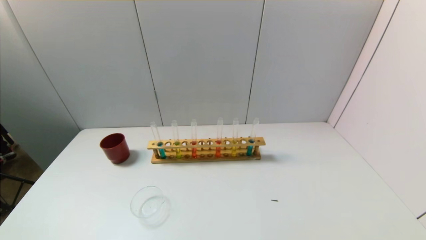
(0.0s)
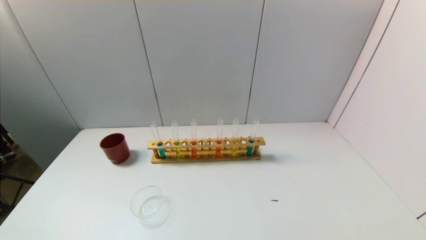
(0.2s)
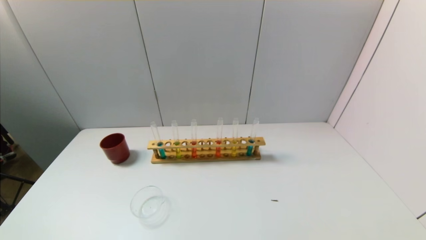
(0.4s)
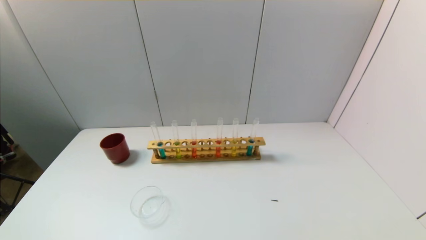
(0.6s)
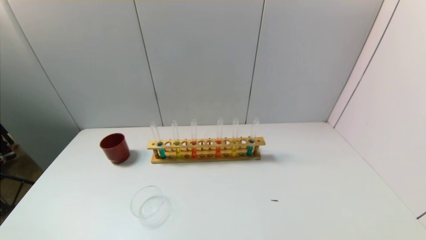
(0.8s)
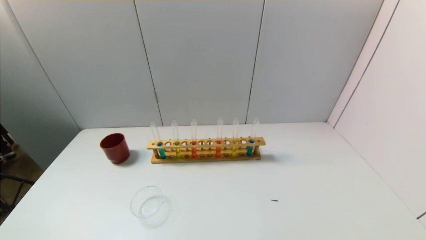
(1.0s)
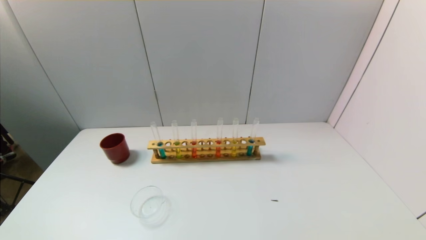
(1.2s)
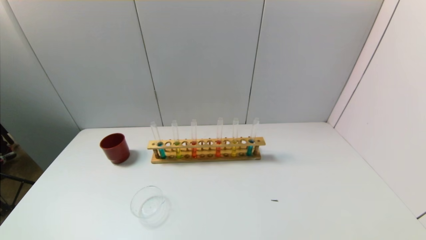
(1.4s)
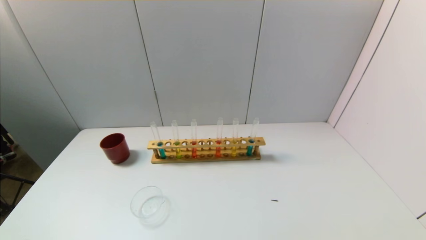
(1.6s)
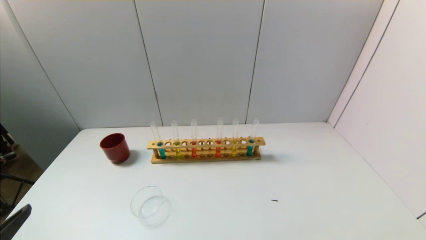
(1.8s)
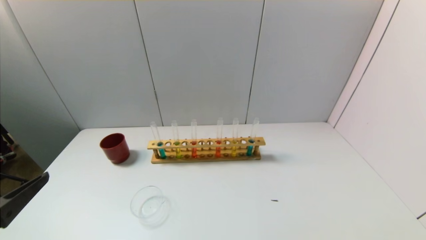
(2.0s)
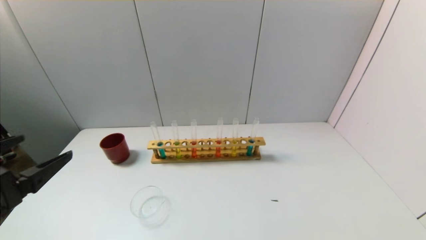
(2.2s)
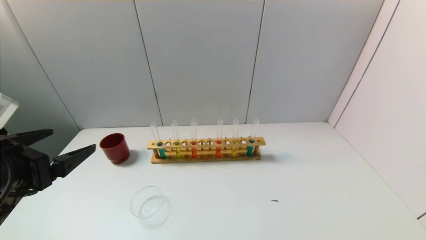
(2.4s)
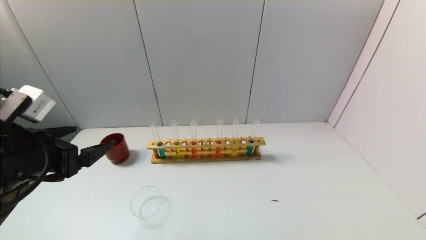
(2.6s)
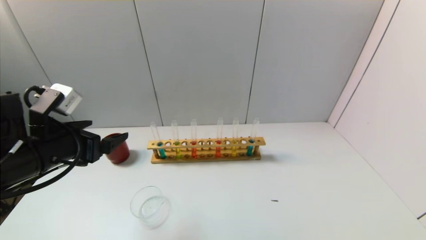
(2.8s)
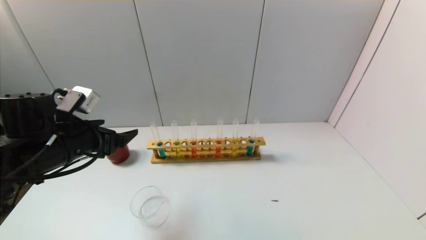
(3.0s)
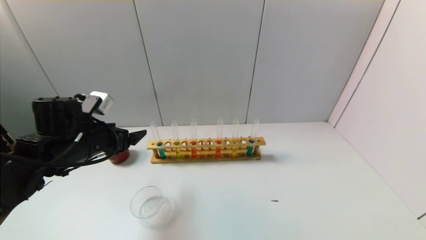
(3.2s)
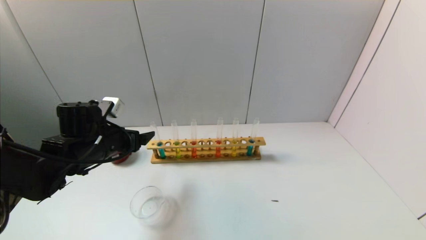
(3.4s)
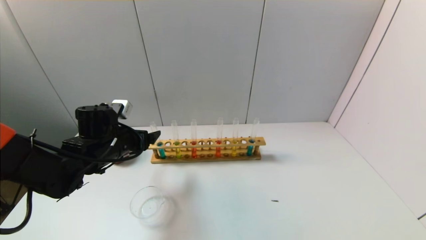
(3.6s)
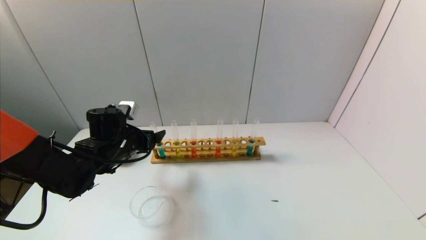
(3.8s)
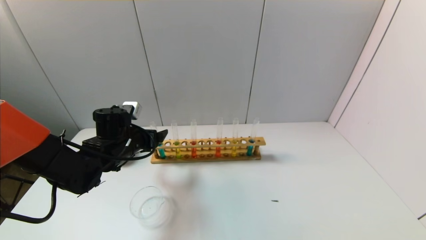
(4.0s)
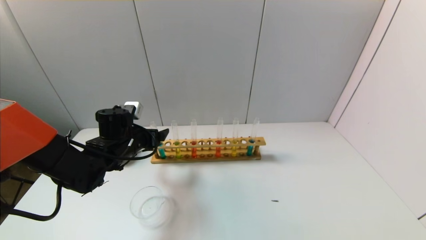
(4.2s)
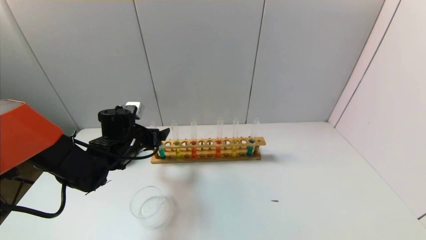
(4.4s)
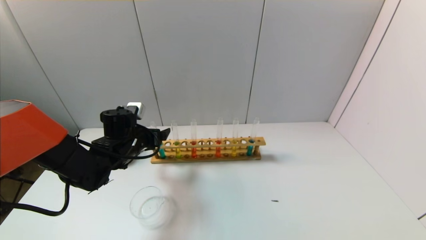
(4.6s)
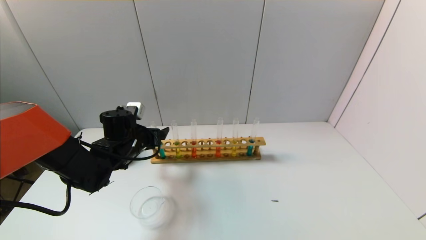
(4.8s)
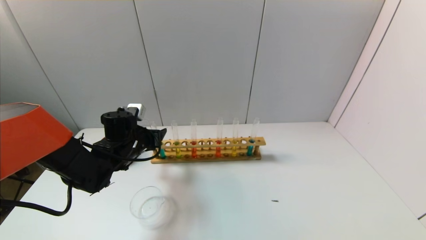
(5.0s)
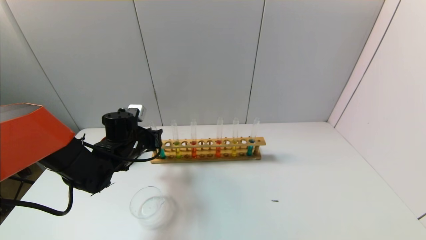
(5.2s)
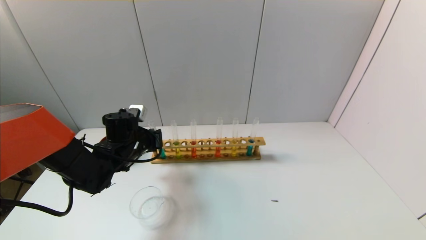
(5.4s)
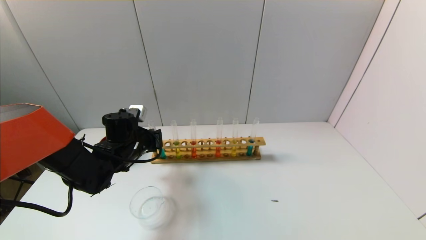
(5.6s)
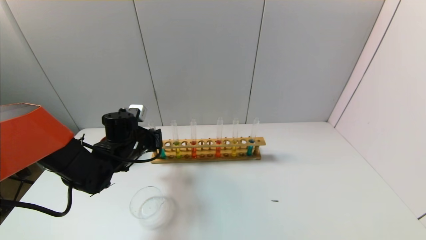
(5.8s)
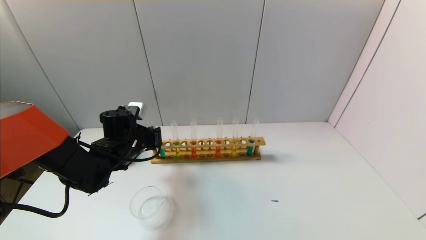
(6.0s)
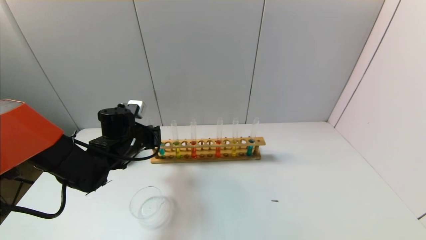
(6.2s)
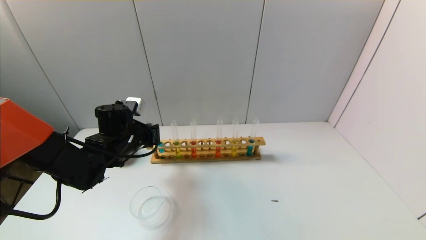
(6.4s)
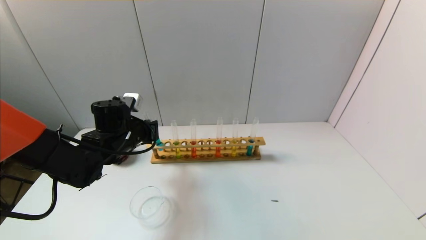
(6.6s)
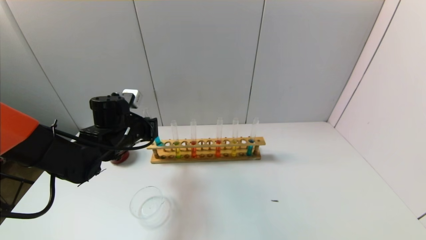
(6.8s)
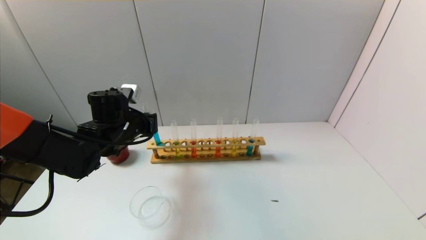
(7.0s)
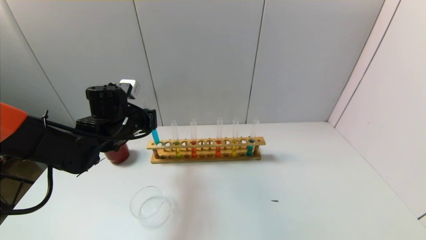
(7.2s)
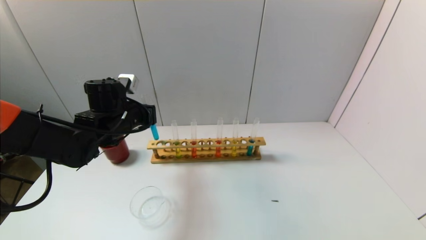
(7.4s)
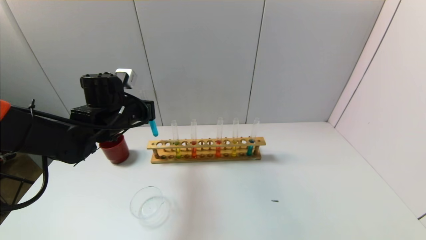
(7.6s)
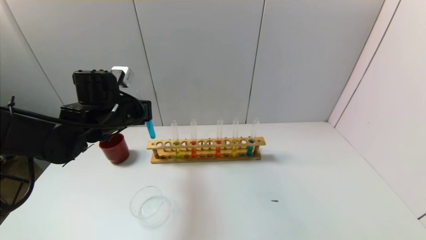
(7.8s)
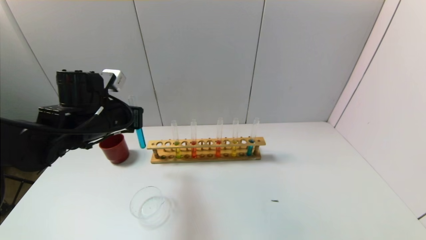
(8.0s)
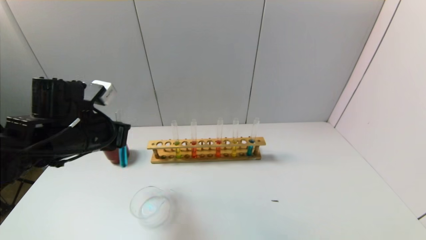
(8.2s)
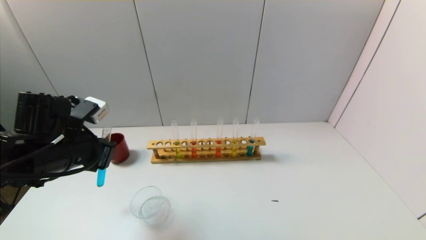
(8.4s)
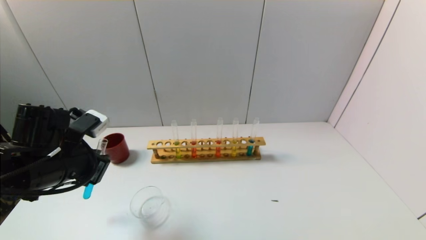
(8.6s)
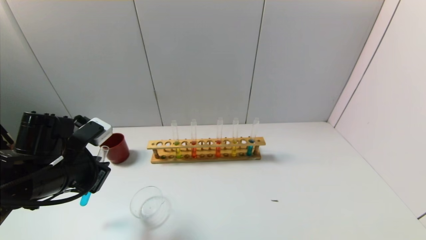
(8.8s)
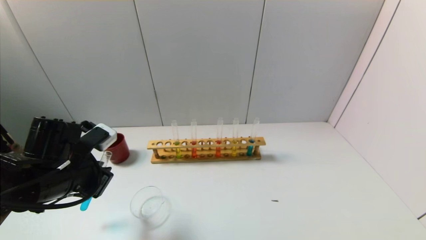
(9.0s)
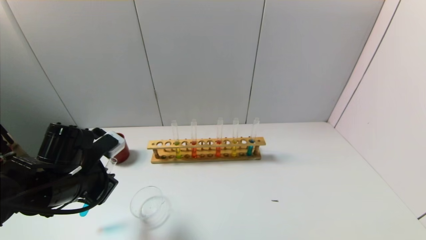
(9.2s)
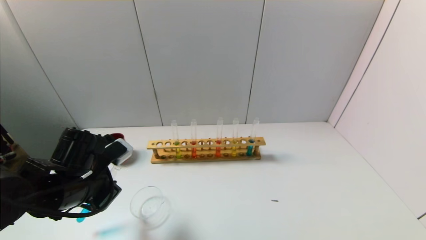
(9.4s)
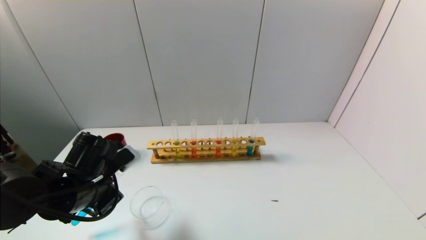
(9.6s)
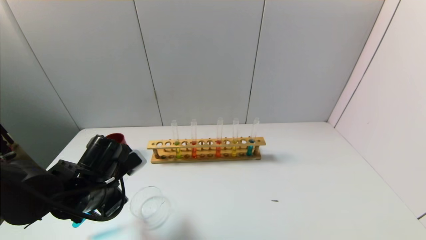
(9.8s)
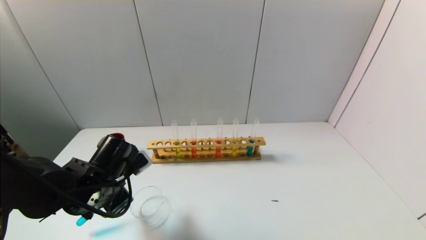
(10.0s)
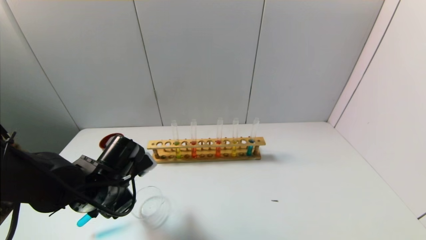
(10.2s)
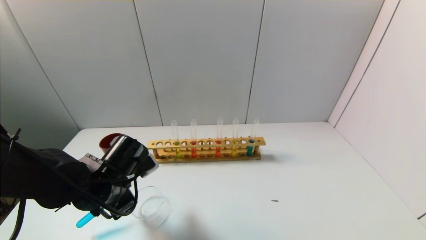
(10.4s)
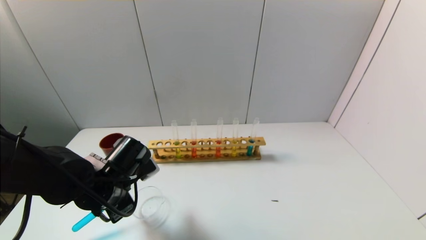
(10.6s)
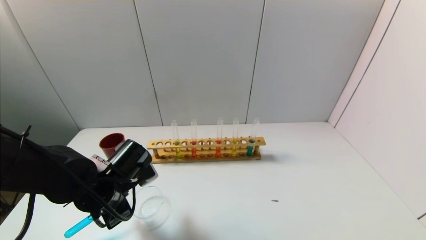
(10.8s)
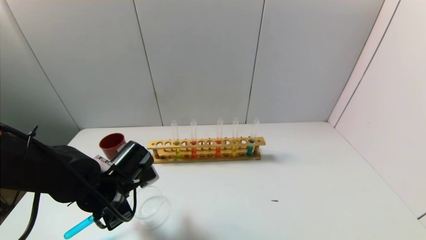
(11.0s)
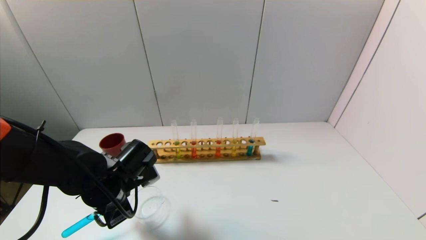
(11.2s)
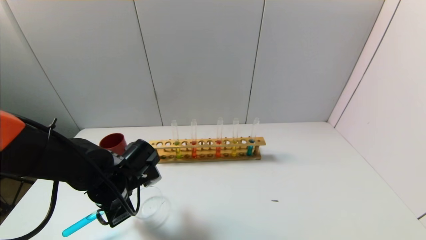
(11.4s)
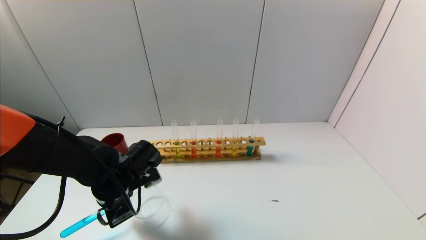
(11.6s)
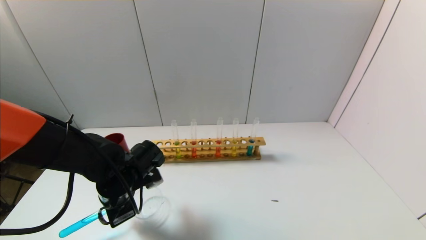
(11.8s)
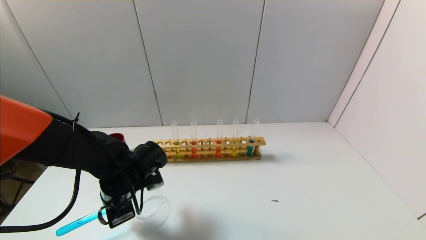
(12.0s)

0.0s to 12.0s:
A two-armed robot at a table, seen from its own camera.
Task of the whole recording: pick up the test tube with yellow pigment and the test tube with blue pigment by grippers and pour them into the beaker.
Step, 0.0s to 5.4s: Grasp the blue reagent with the left gripper.
1.6s to 3.0s: The left gripper is displaced forward by roughly 25 cm.
3.0s to 4.4s: The left gripper shifts about 15 cm forward, downward and to the right.
4.4s to 6.0s: The left gripper closes.
6.0s to 7.6s: The left gripper heads upward, covering about 10 cm.
7.6s to 9.0s: The left gripper moves backward, approximately 15 cm.
9.0s to 10.4s: The left gripper goes some 5 cm to the right.

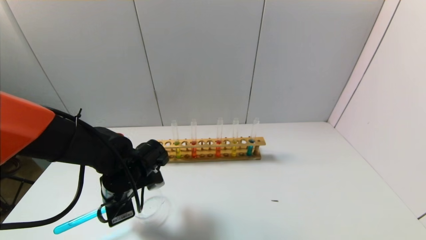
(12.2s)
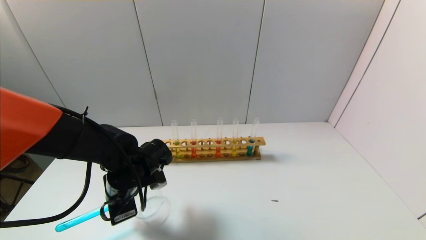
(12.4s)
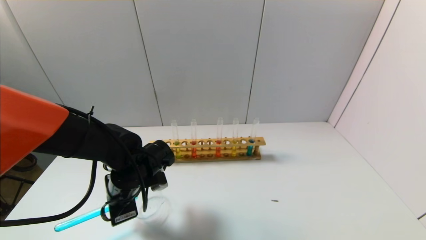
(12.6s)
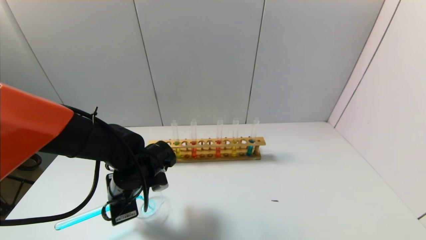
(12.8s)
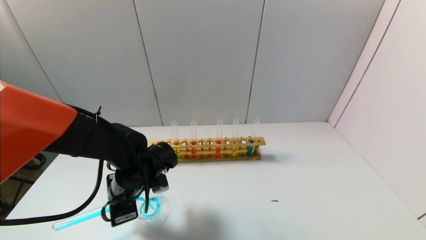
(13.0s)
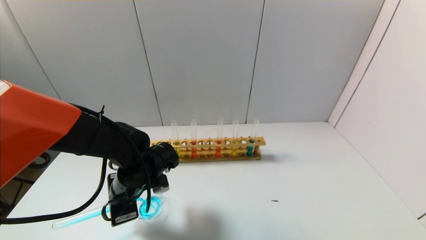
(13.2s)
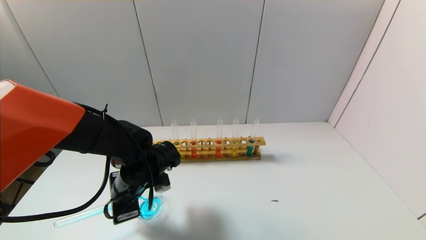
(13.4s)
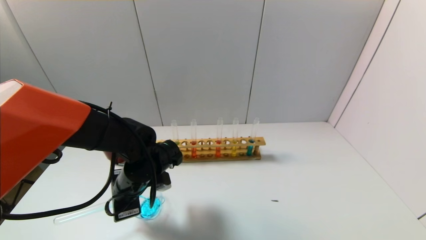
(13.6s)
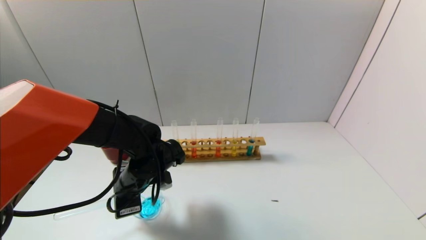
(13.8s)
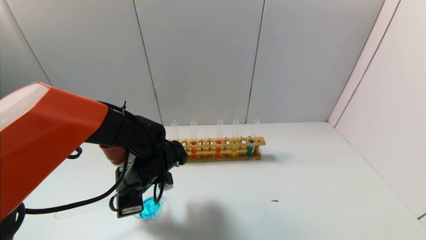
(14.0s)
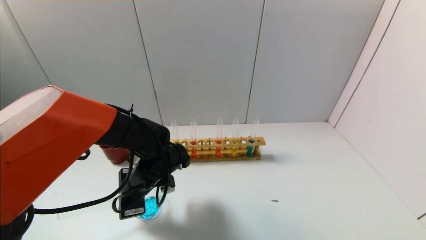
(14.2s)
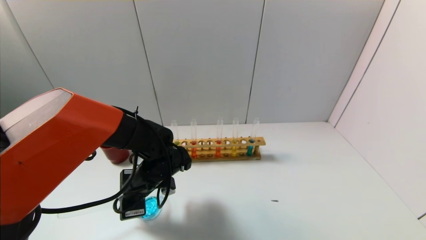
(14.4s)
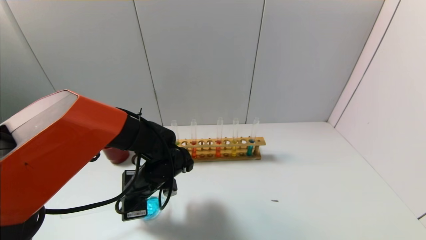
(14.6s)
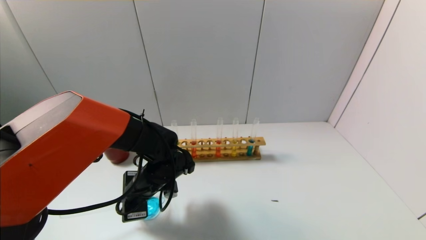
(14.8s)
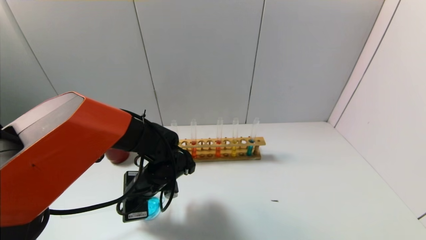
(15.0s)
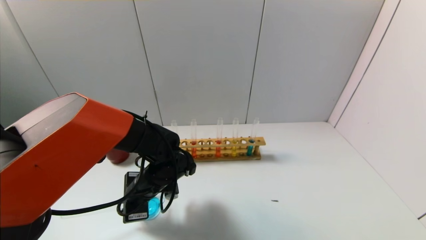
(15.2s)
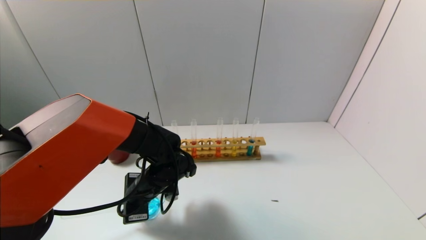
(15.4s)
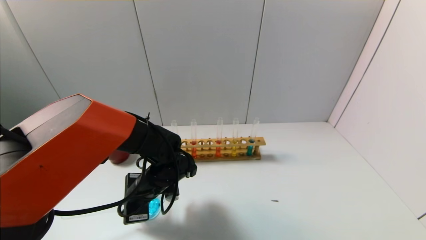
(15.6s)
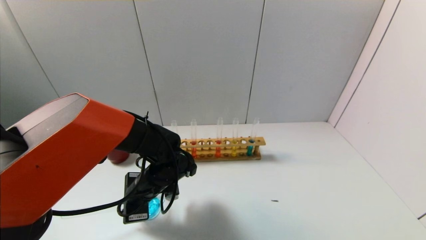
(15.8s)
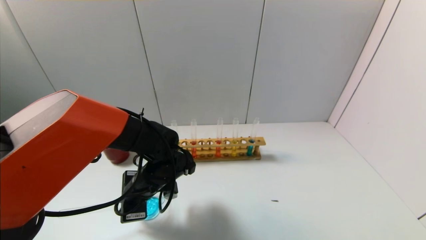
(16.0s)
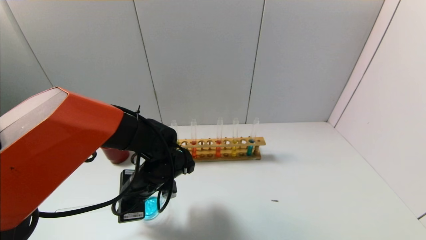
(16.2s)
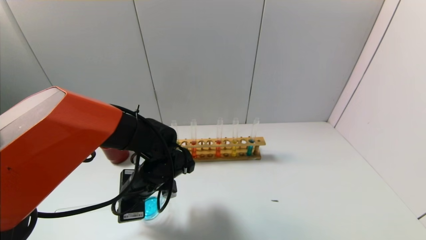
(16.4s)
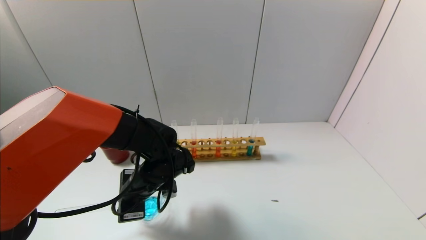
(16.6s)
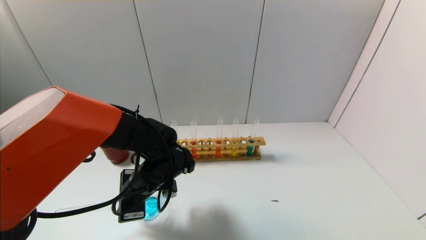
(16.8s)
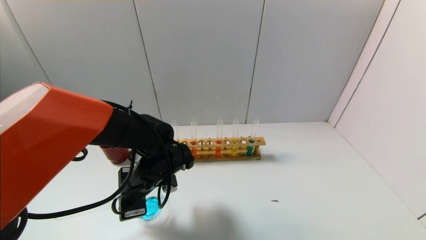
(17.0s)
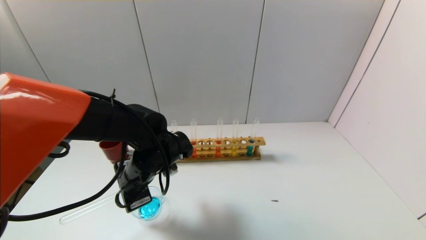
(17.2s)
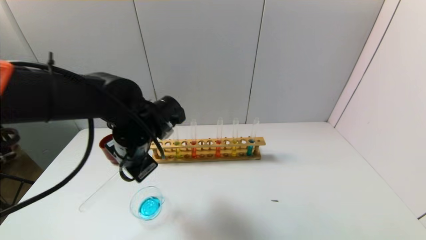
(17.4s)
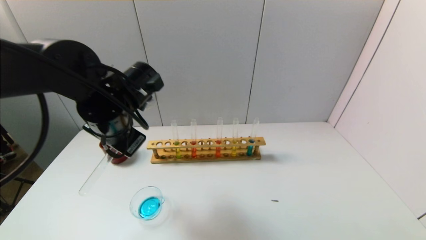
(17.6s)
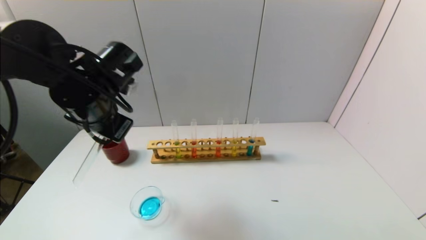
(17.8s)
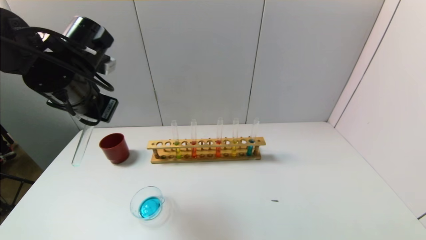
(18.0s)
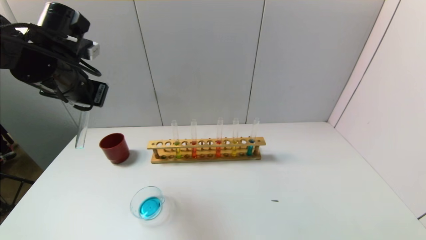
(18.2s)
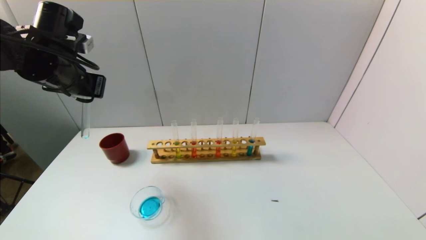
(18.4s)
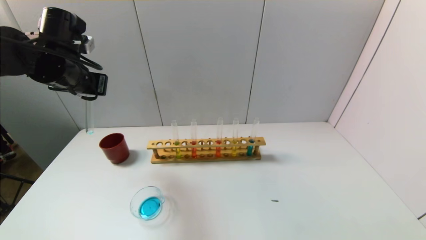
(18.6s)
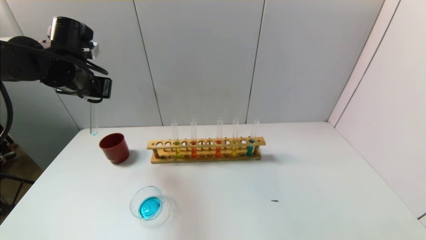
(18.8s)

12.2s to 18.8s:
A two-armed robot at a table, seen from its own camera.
Task of the whole recording: pick up the test tube with yellow pigment and the test tube with blue pigment by grippers and pour them into the beaker.
Step, 12.2s to 15.2s: Pour the blue reagent into the graduated cylinder with the left gripper.
12.2s to 13.8s: The grippers make only small movements.
13.8s to 15.4s: The grippers stay close to where they were, moving slightly.
15.4s to 17.2s: The left gripper travels upward by some 5 cm.
17.2s to 18.8s: The left gripper heads to the left, upward and forward, covering some 20 cm.
